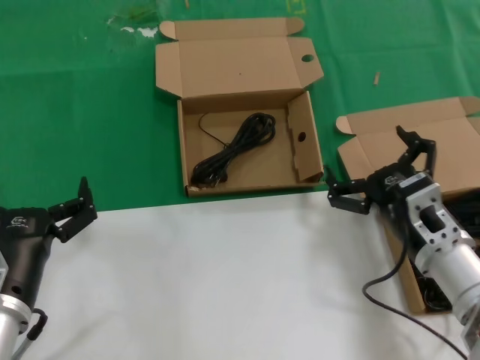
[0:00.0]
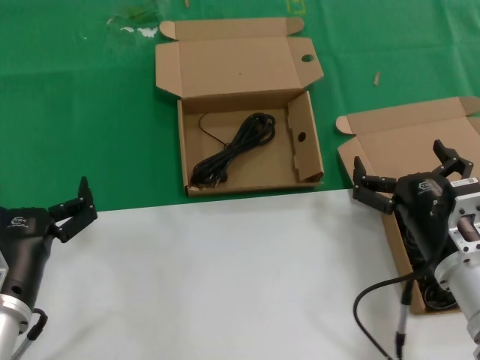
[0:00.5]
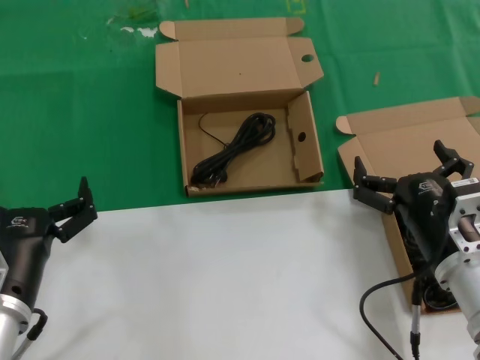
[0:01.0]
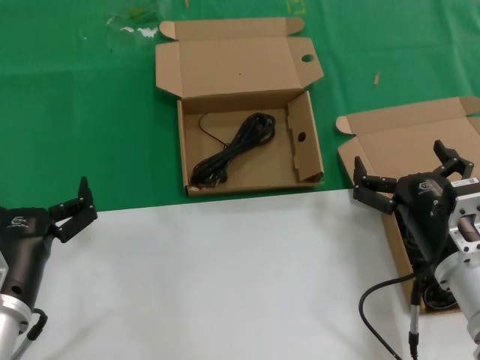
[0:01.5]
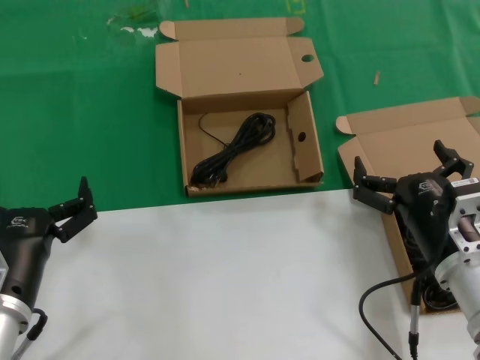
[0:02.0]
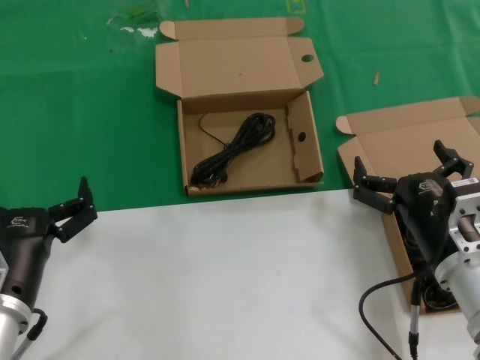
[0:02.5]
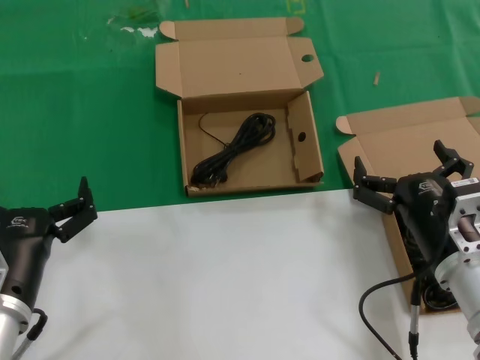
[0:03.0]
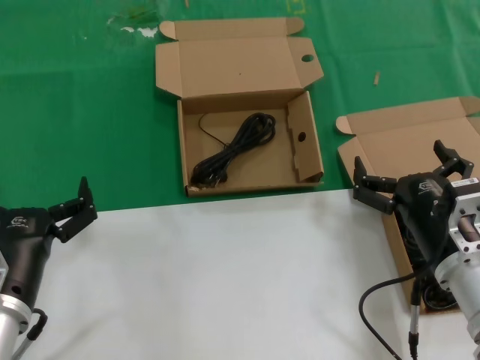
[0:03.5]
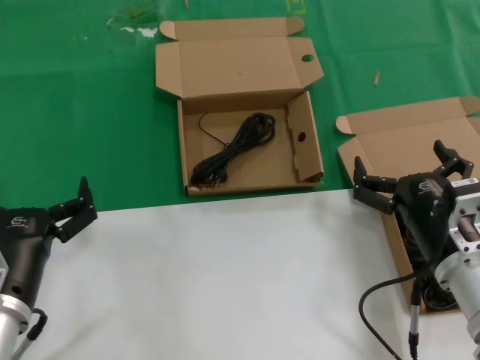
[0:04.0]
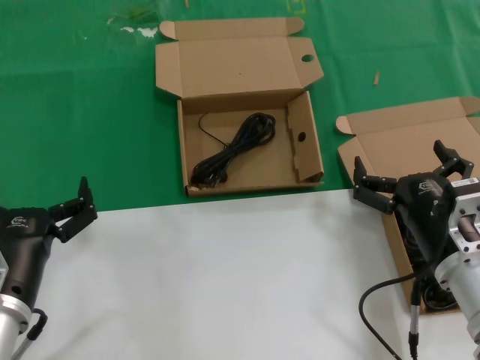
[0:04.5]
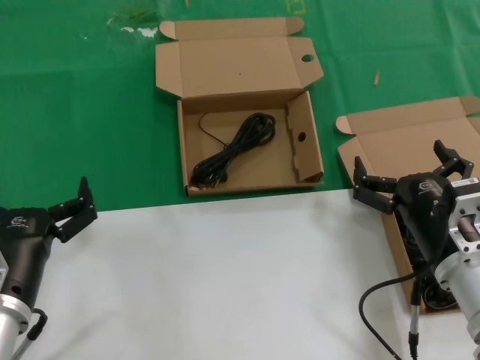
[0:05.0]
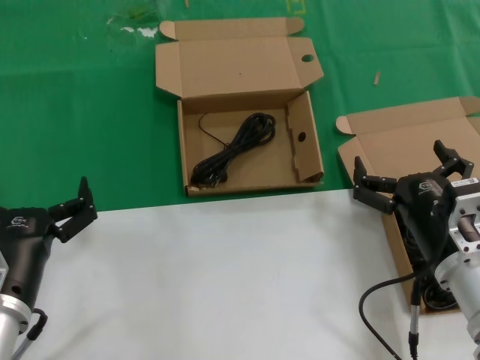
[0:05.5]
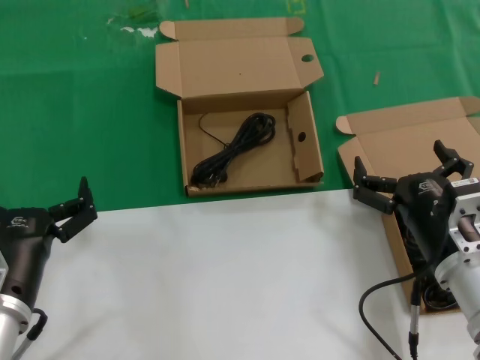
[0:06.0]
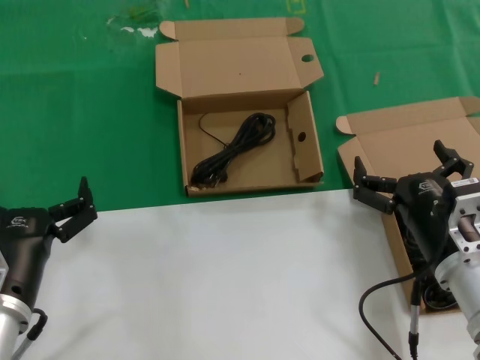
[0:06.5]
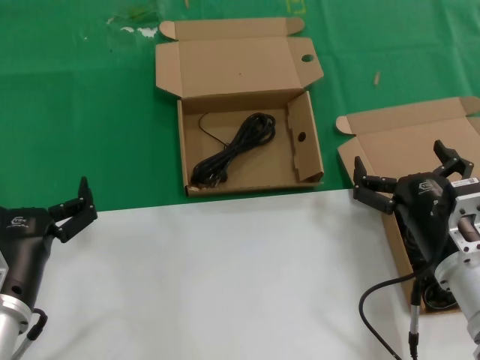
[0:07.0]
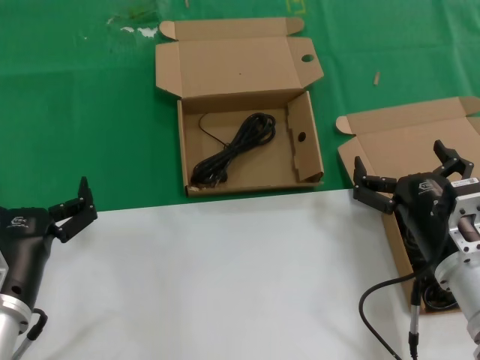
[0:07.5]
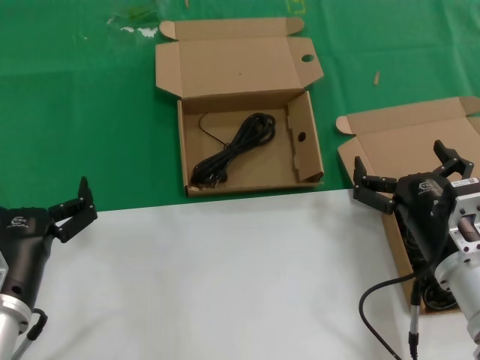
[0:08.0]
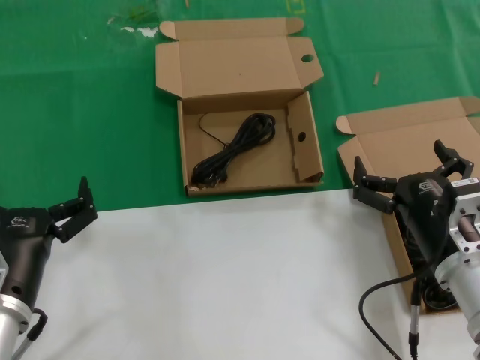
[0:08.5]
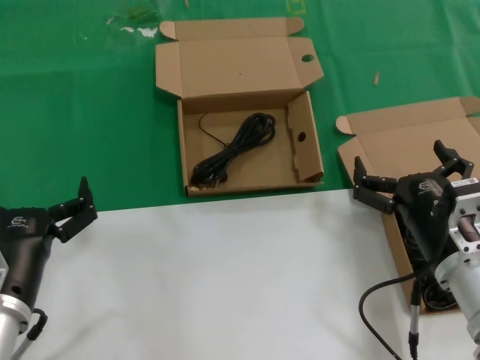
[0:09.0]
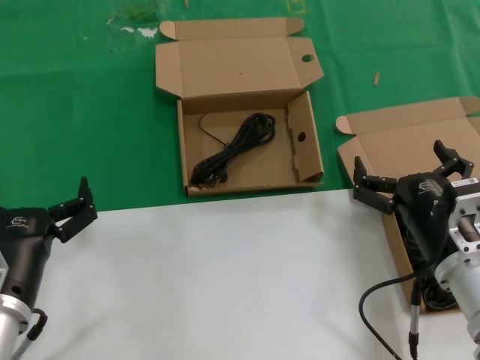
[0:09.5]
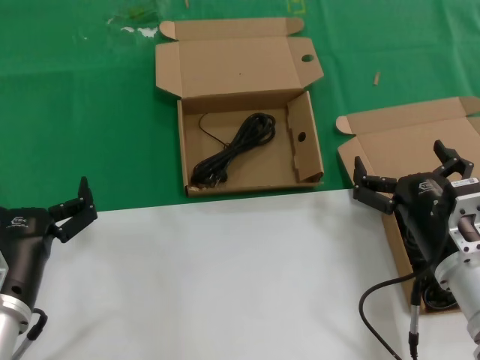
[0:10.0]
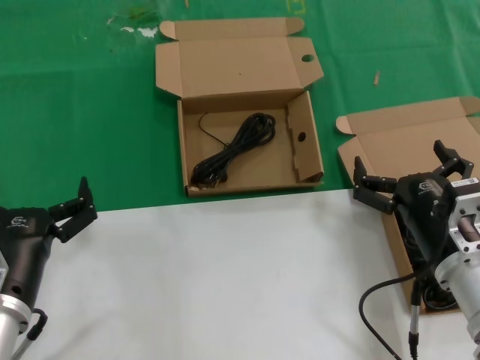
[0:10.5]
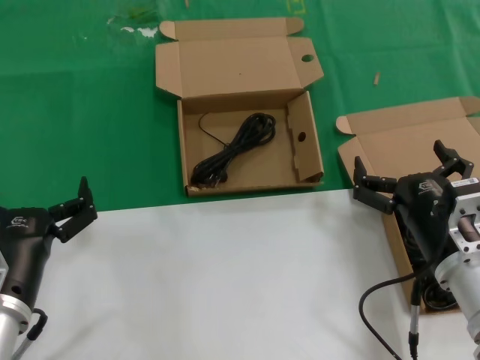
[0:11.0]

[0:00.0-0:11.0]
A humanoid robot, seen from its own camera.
Task of the whole recording: take the parts from the box containing them and put them into an empty box.
0:00.0 to 0:02.0: The hands make only small movements.
0:02.0 to 0:11.0: Both hands stay put.

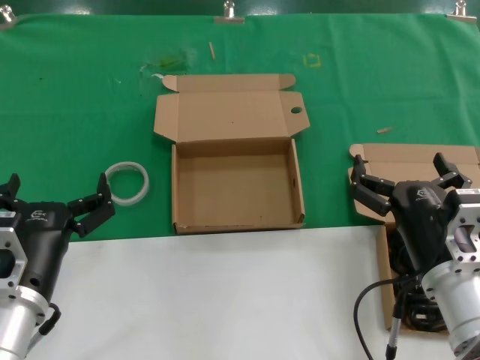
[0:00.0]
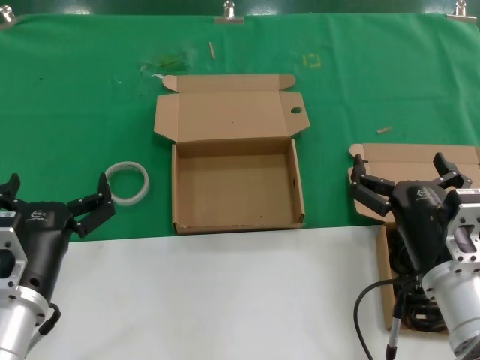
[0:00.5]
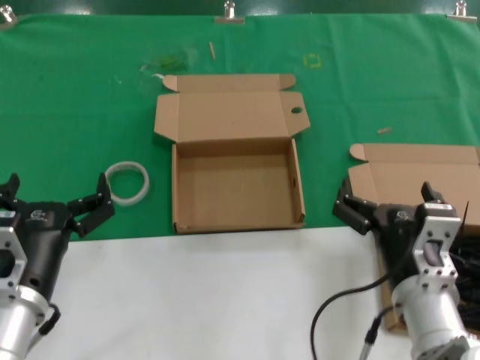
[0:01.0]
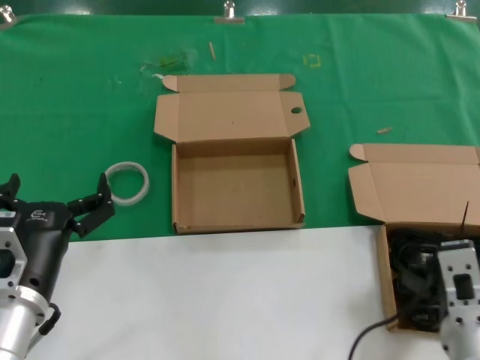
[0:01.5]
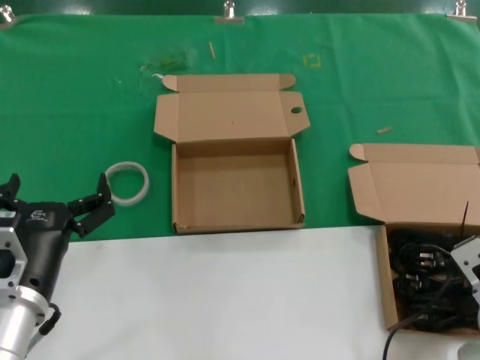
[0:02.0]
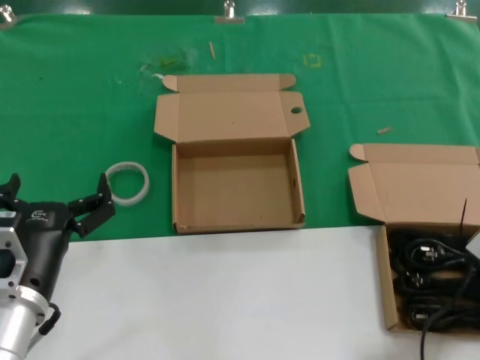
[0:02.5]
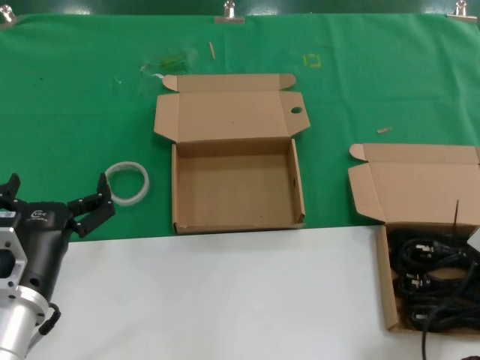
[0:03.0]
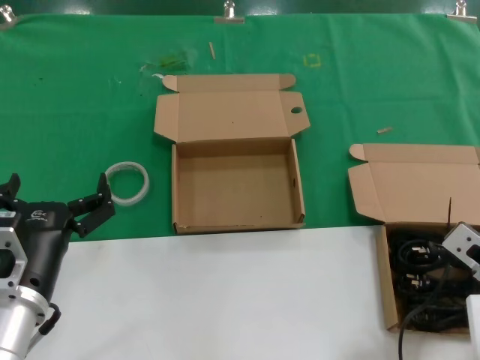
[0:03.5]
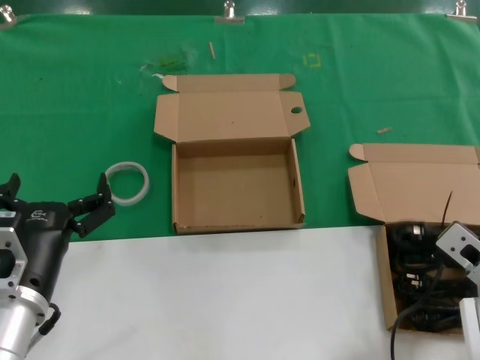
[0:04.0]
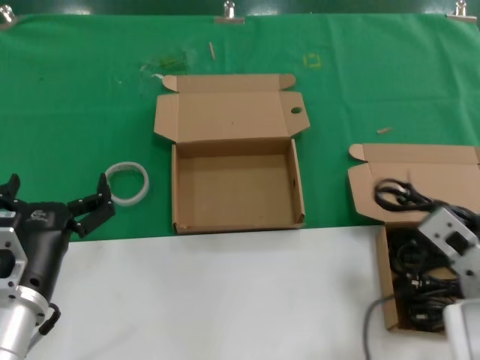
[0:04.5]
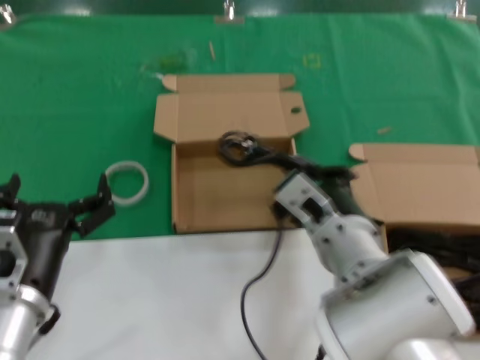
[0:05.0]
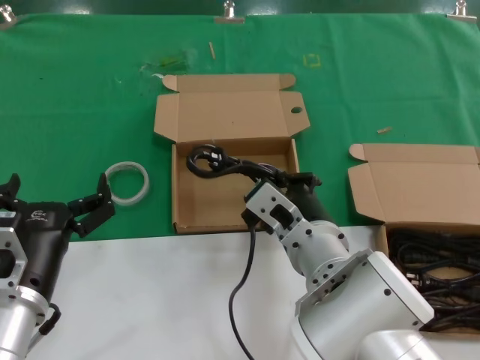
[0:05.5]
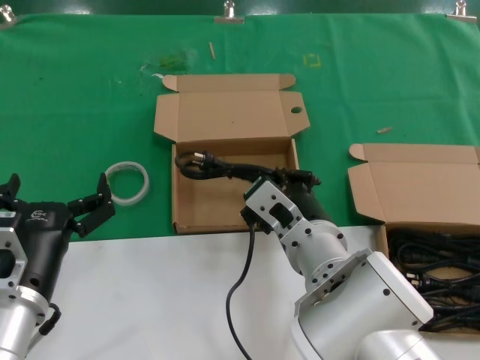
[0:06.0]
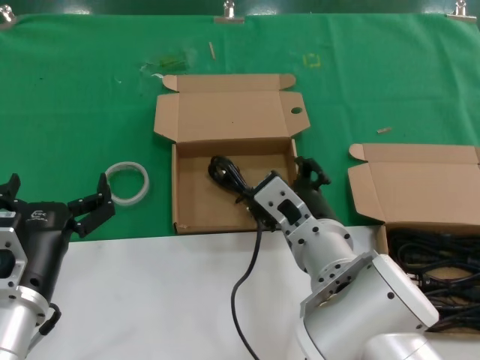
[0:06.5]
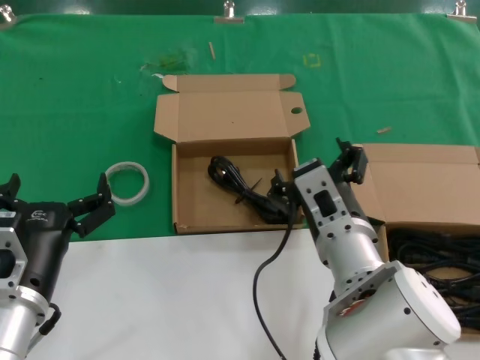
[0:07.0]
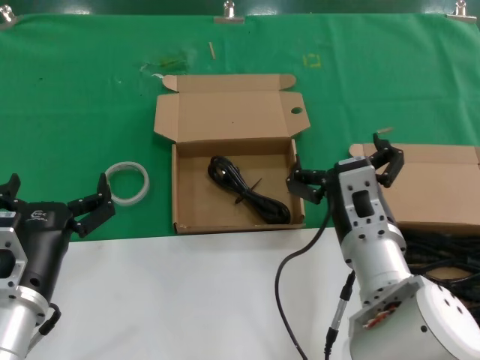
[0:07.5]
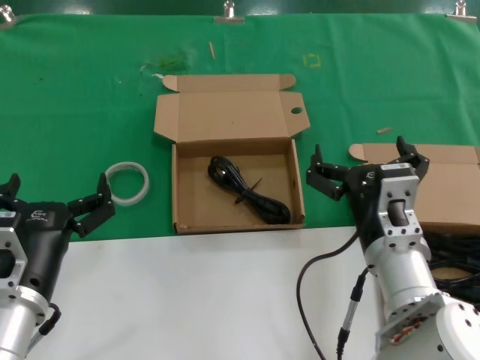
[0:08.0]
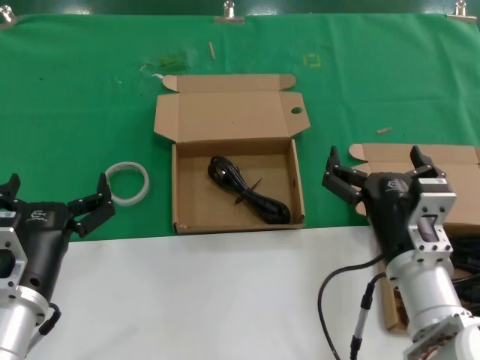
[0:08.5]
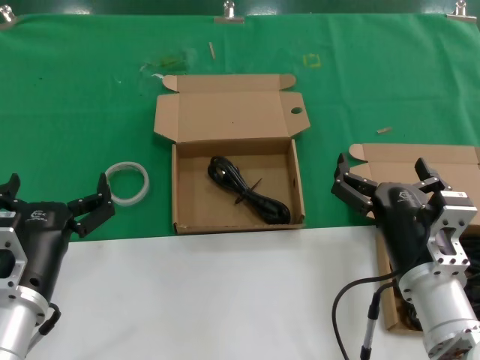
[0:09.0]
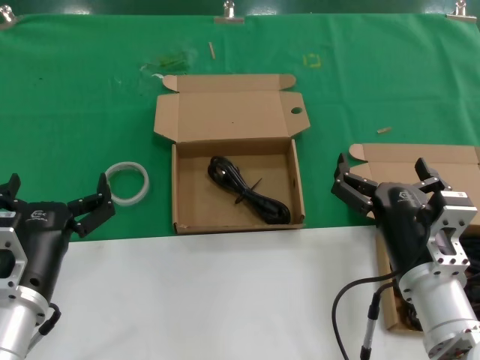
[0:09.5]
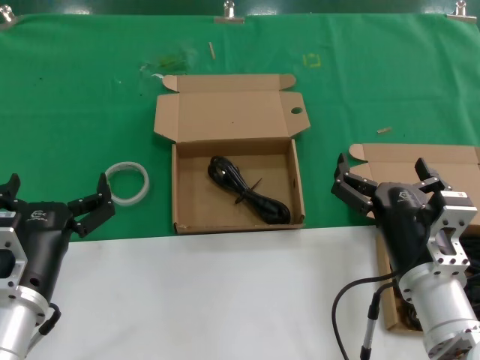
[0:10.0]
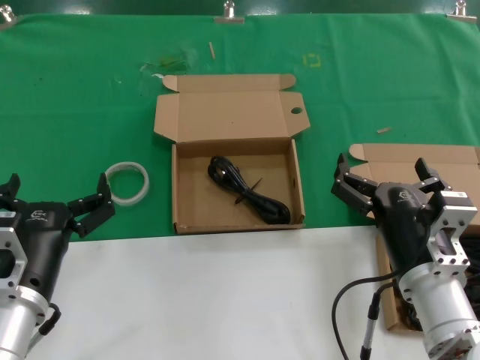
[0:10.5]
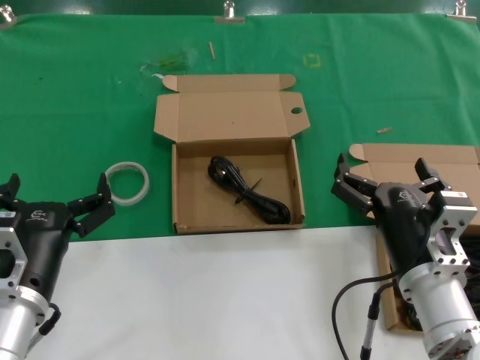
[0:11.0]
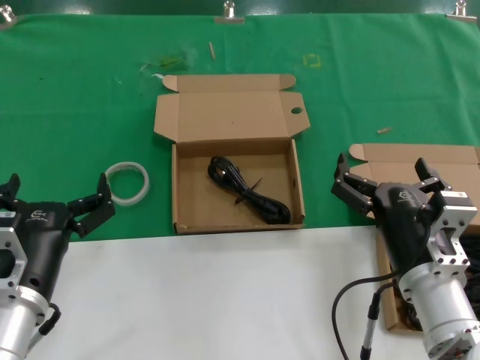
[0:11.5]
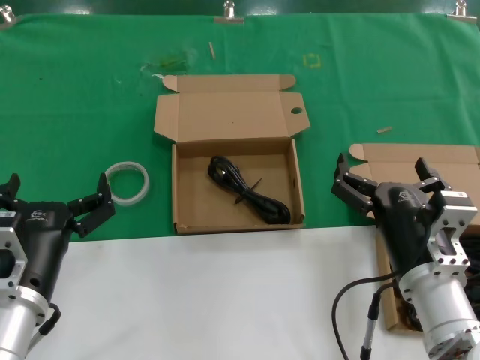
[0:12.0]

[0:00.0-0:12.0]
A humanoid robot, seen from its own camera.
Task of the whole recording: take the parts from the box containing them and put them into an empty box.
Step, 0:00.0 to 0:03.5: Grasp the data cable.
Step, 0:04.0 to 0:06.0: Place the data cable in the another box.
0:04.0 to 0:06.0: The right hand travels to the left by approximately 20 cm.
0:06.0 to 0:08.0: The right hand moves to the right, some 10 cm.
0:08.0 to 0:10.0: The right hand moves some 5 cm.
0:10.0 to 0:12.0: Neither hand changes place.

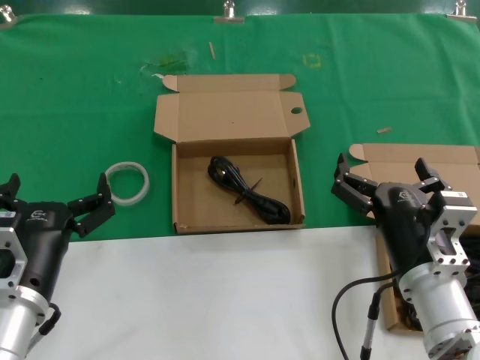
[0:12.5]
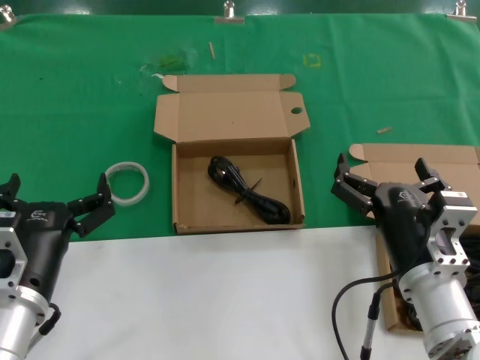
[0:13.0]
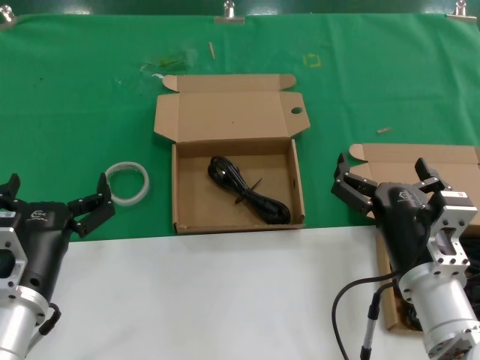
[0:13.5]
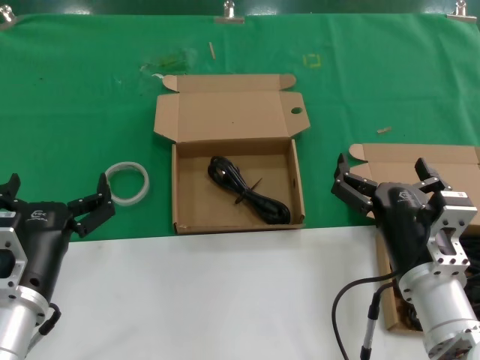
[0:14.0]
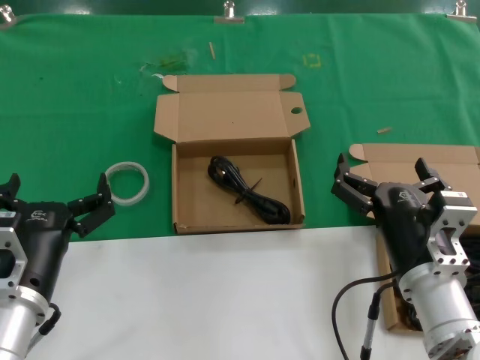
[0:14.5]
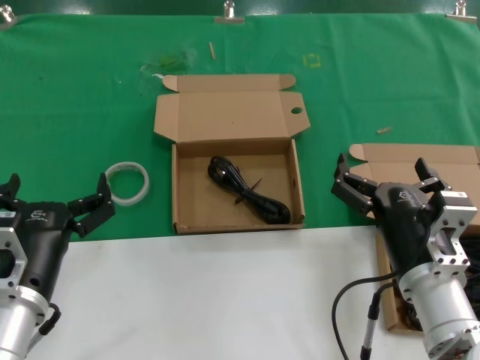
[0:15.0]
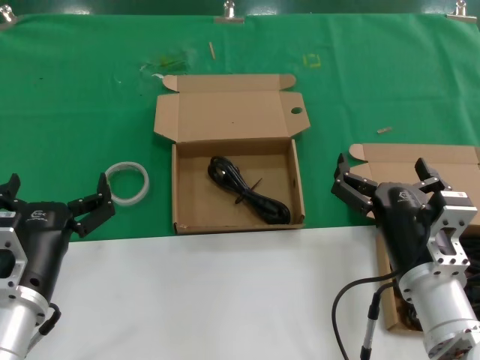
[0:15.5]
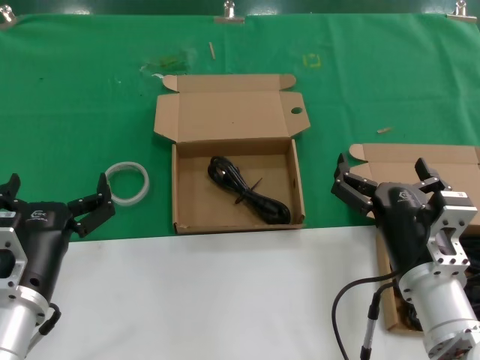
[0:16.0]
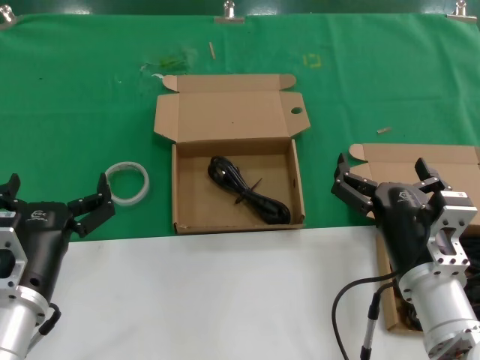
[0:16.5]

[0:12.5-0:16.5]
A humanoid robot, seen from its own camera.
Task of the whole recording: take the parts from the box containing them and put them into an empty box.
0:12.5 to 0:16.5: Both hands stay put.
